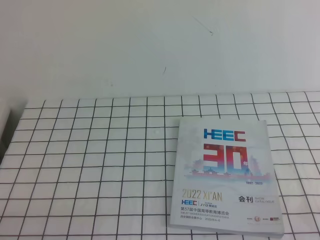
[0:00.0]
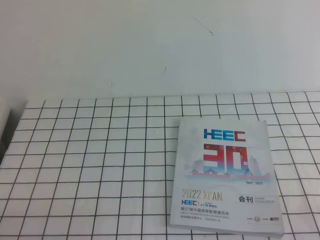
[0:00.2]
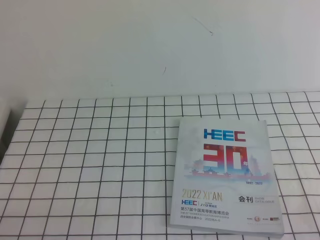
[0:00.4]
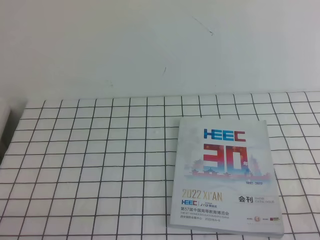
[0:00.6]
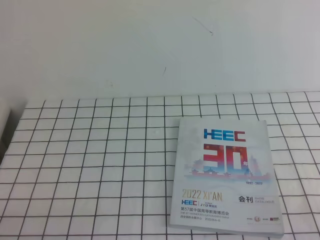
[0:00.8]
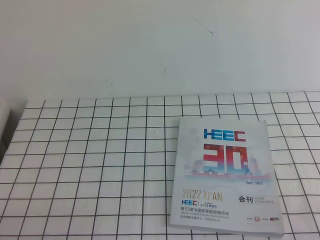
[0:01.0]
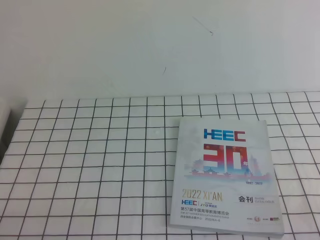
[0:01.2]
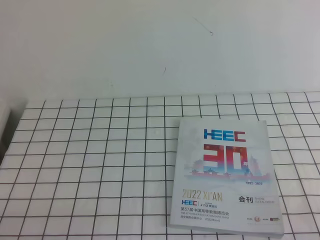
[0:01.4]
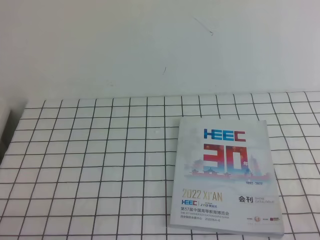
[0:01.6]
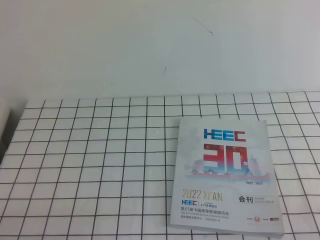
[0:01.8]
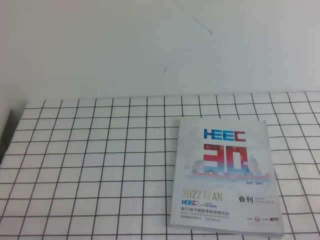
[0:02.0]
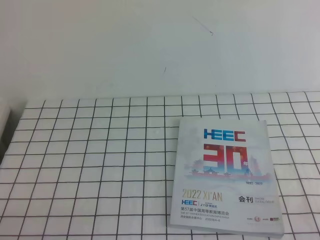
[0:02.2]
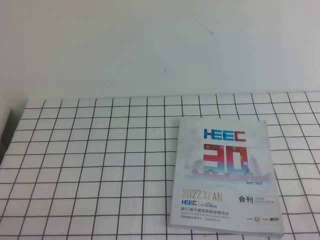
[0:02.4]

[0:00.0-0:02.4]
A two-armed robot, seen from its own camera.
Task of the whole recording: on the white tablecloth, hold the book with one hand and close it with the other.
0:01.2 to 0:02.4: Both grippers stay about where they are.
